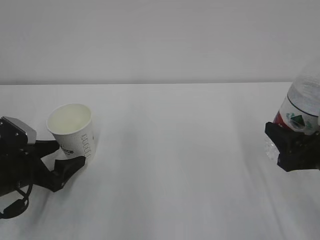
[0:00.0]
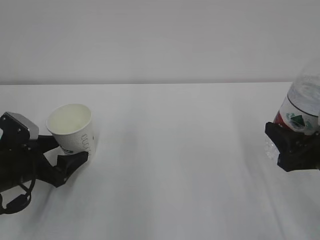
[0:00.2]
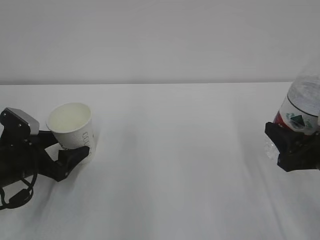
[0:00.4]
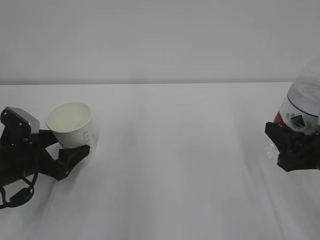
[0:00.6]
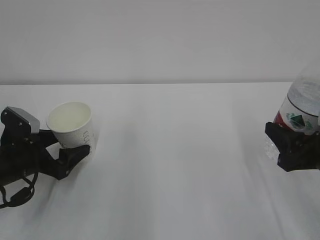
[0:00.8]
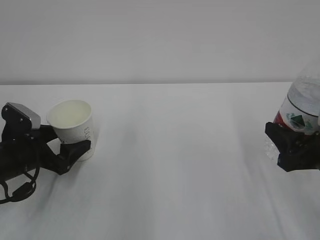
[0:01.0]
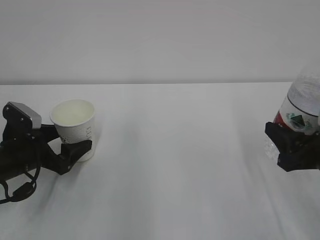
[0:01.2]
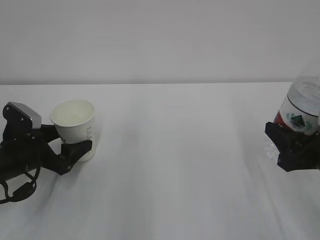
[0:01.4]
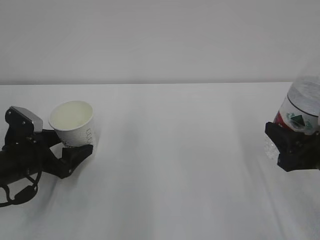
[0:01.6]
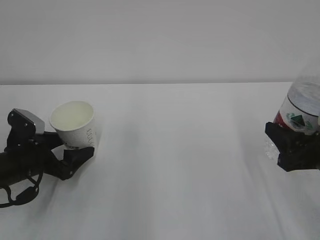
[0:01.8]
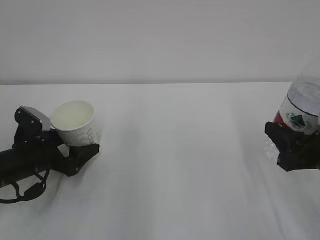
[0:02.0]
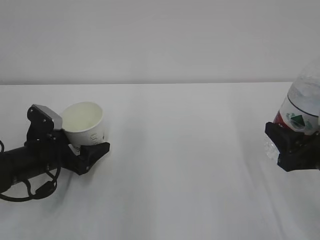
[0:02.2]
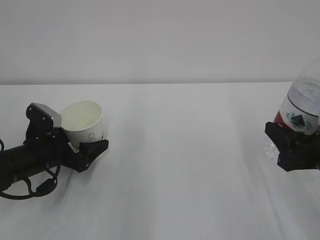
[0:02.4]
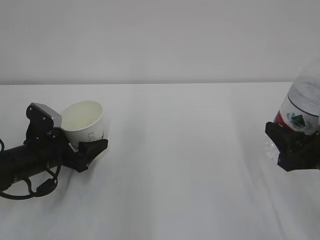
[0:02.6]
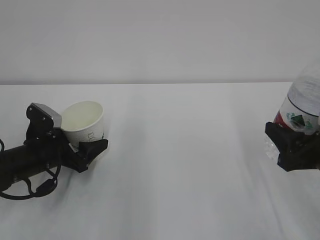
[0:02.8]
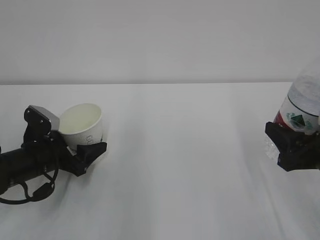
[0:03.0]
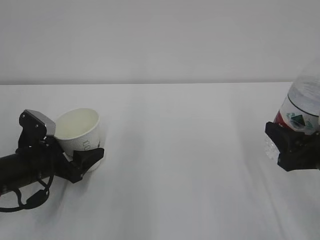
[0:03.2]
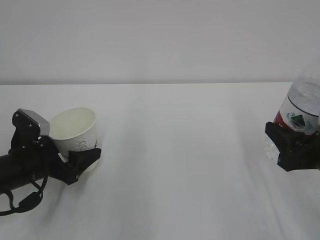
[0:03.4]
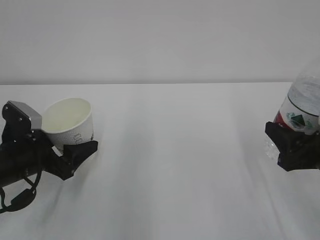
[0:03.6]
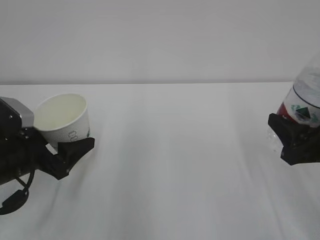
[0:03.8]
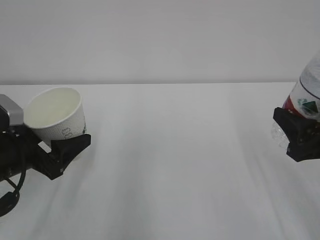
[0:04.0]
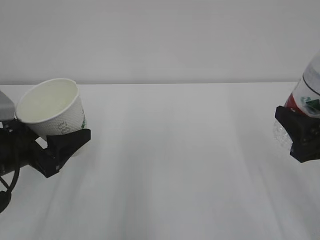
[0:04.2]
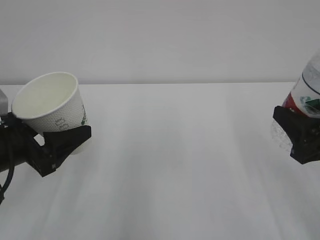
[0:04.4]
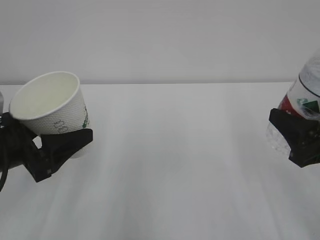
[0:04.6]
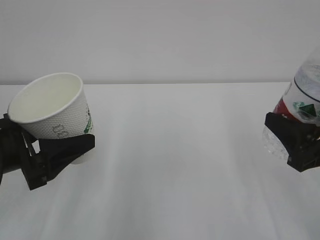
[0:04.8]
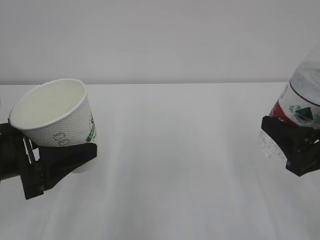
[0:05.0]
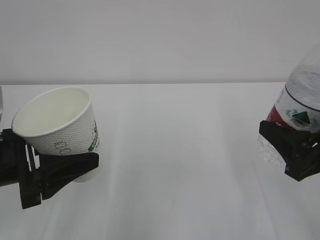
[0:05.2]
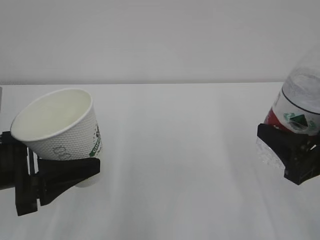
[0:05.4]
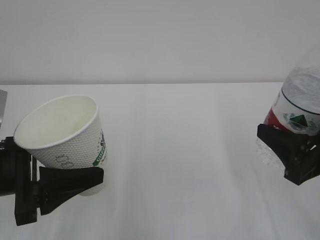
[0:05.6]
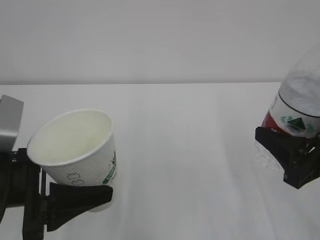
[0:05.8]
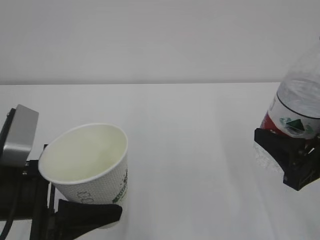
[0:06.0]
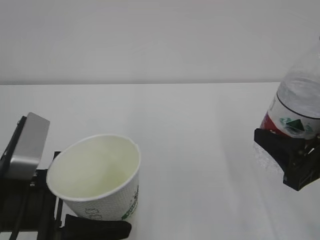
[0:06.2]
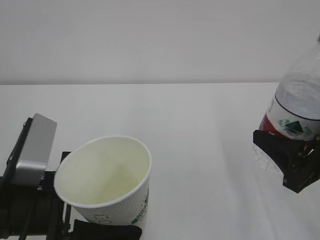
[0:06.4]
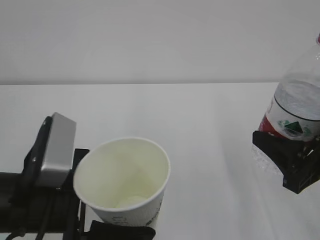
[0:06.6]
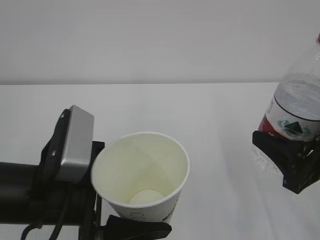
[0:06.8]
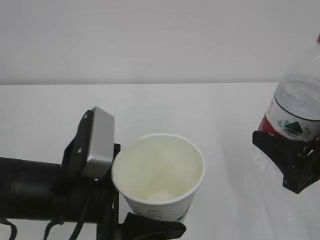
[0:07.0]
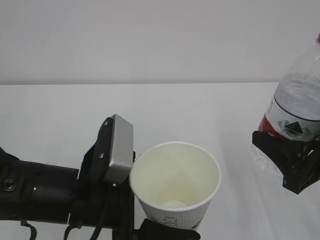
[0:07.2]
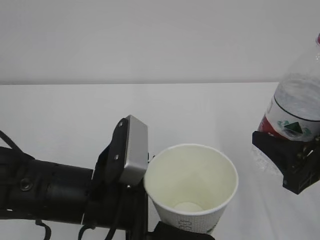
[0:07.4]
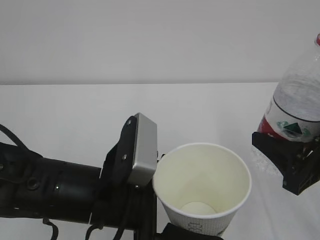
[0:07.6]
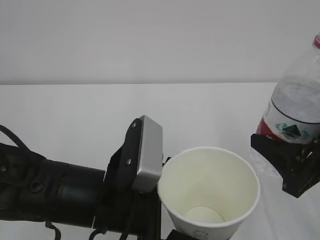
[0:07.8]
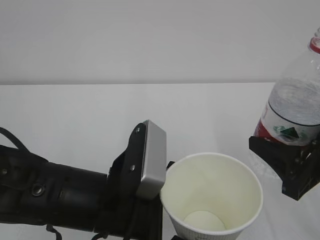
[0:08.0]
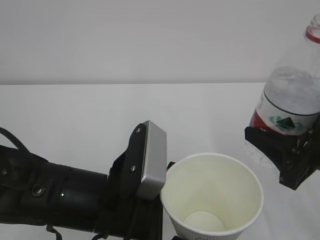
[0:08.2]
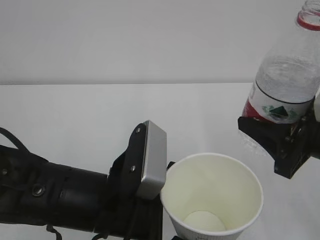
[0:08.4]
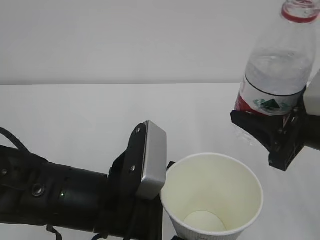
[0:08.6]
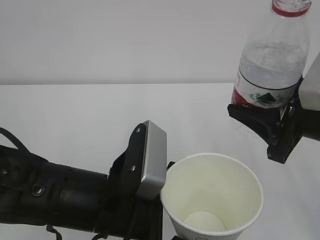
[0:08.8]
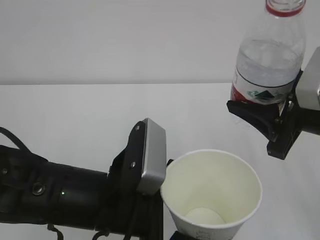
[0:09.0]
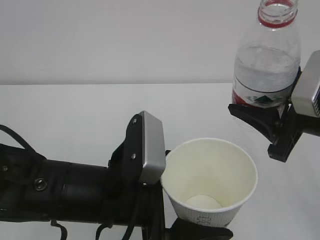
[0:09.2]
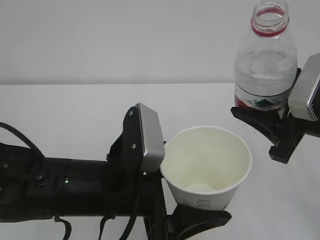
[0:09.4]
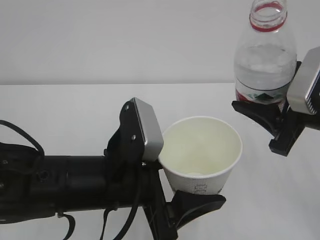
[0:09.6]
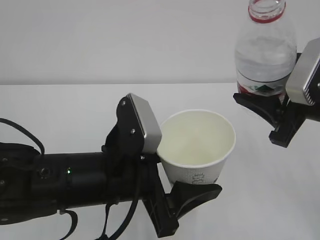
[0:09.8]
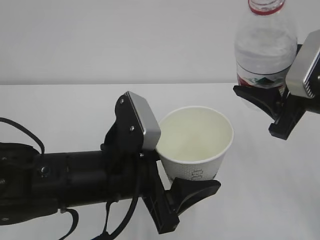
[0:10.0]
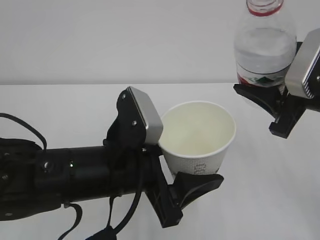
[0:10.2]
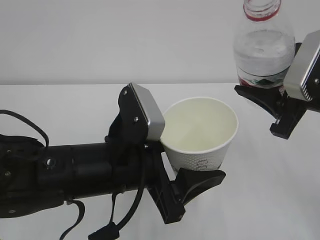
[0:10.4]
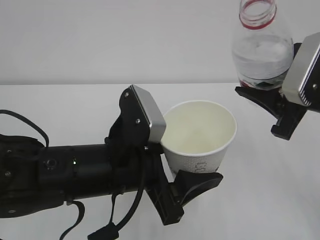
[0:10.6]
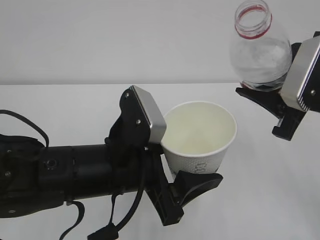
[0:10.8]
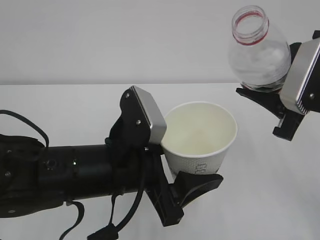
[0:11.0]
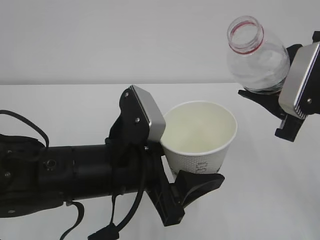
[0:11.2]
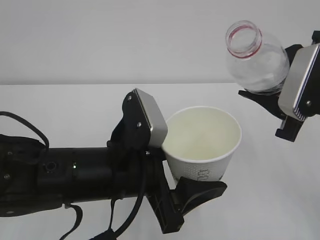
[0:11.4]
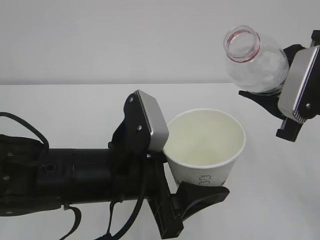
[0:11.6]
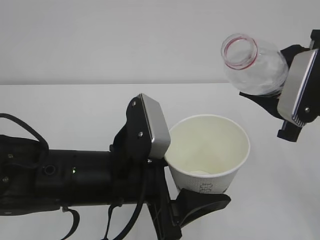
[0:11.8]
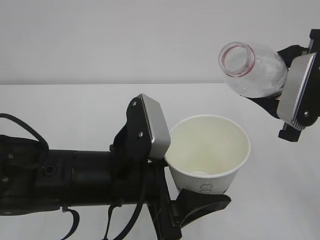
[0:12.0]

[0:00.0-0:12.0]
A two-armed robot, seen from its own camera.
0:00.0 to 0:01.6: The grippers make only small movements.
0:01.6 to 0:03.0: The left gripper closes.
0:03.0 to 0:04.4: The left gripper goes some 10 cm upward and backward.
0:04.4 to 0:06.0: The left gripper travels backward by approximately 5 cm.
0:06.0 to 0:07.6: The left gripper is displaced to the right by some 10 cm.
0:07.6 to 0:09.0: The right gripper travels upward by some 5 cm.

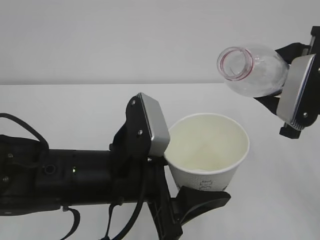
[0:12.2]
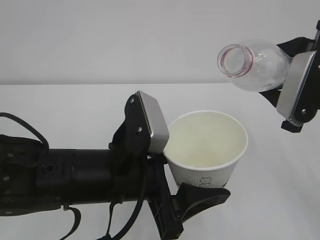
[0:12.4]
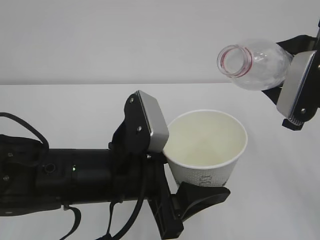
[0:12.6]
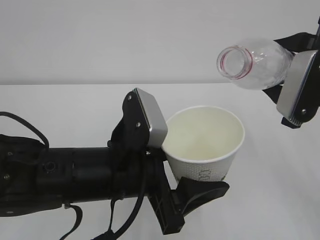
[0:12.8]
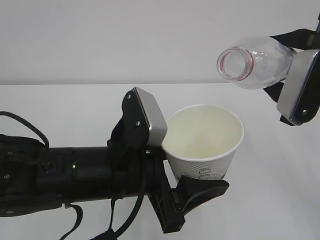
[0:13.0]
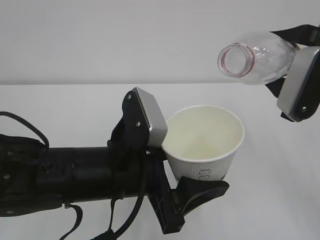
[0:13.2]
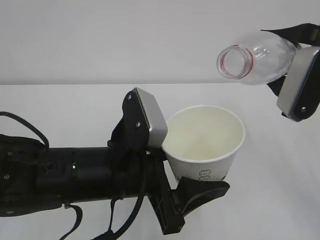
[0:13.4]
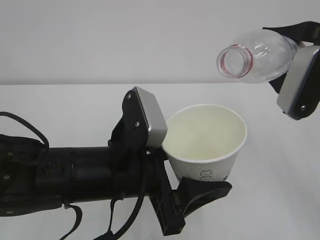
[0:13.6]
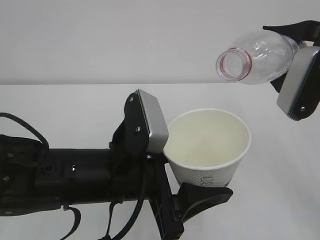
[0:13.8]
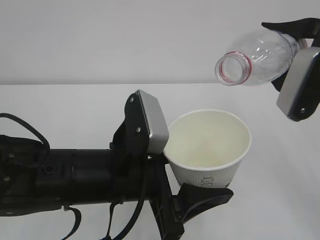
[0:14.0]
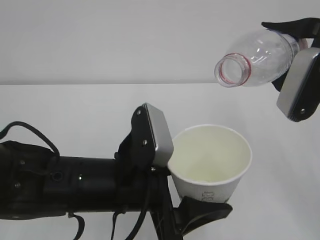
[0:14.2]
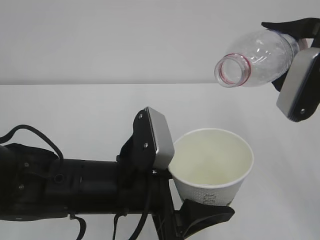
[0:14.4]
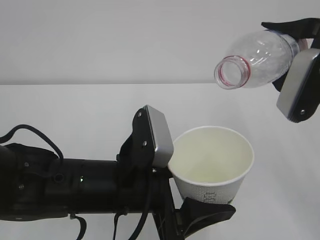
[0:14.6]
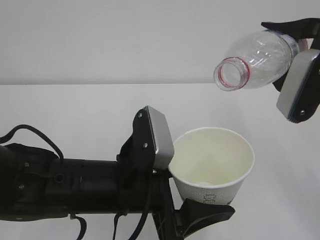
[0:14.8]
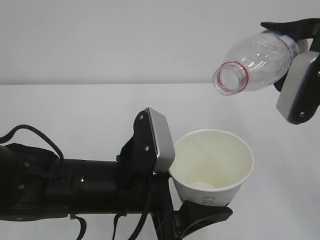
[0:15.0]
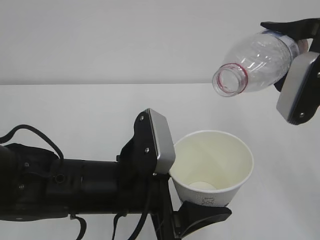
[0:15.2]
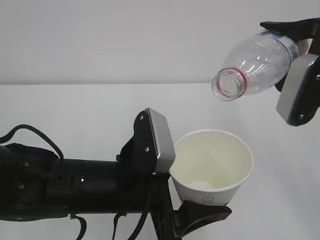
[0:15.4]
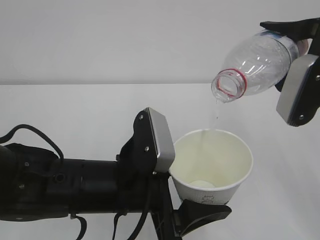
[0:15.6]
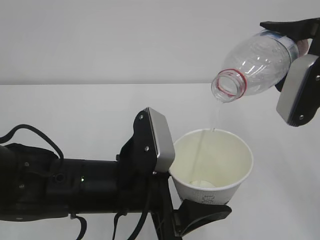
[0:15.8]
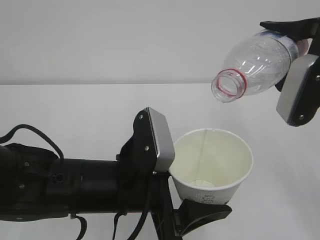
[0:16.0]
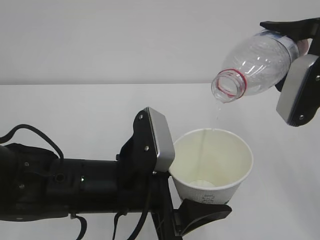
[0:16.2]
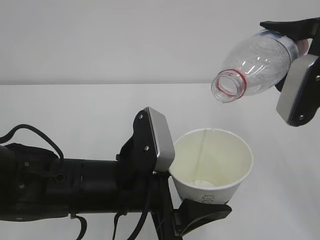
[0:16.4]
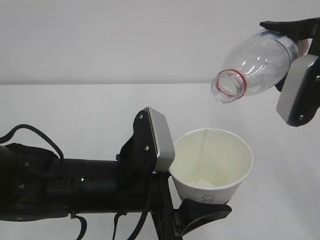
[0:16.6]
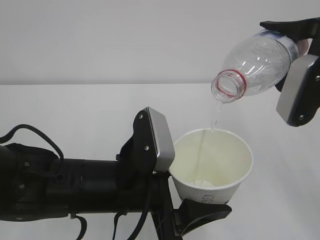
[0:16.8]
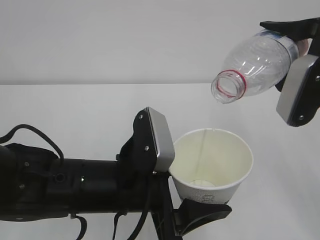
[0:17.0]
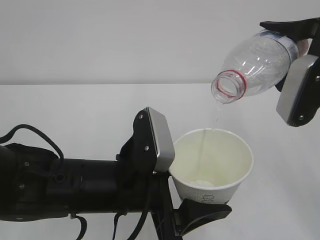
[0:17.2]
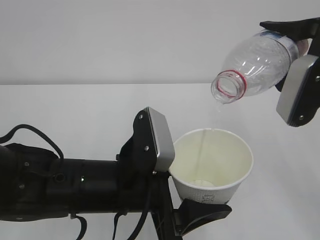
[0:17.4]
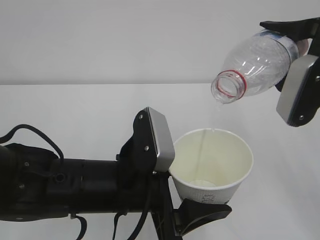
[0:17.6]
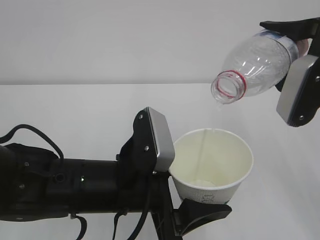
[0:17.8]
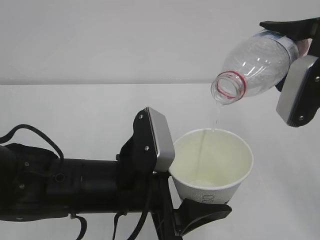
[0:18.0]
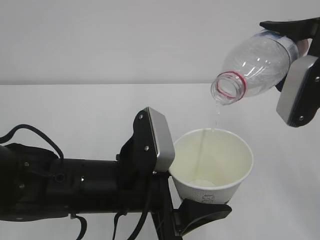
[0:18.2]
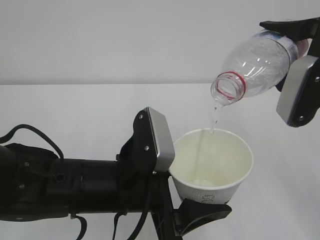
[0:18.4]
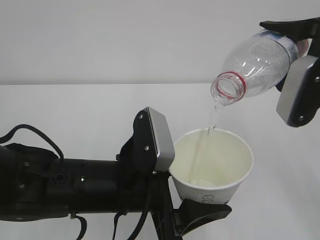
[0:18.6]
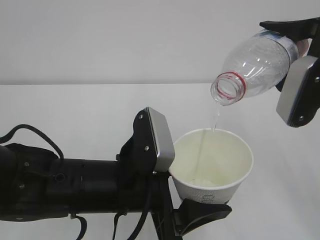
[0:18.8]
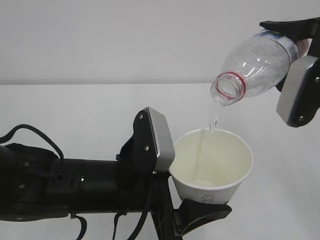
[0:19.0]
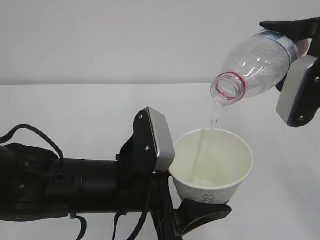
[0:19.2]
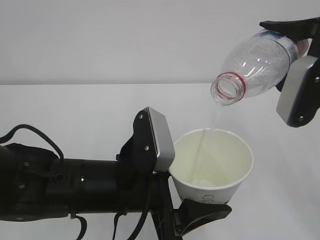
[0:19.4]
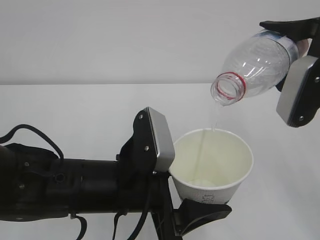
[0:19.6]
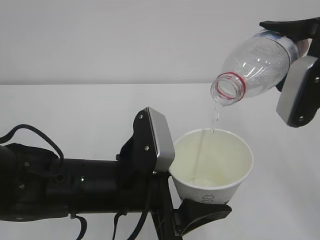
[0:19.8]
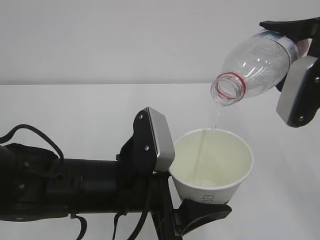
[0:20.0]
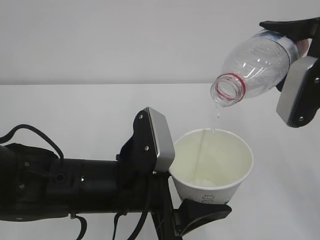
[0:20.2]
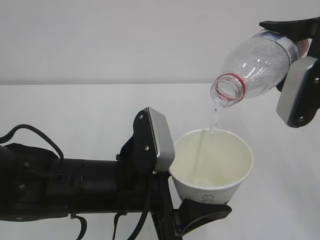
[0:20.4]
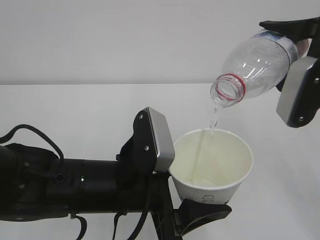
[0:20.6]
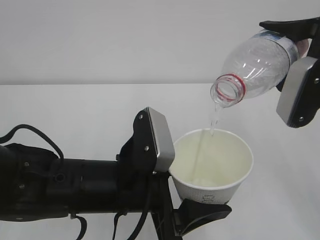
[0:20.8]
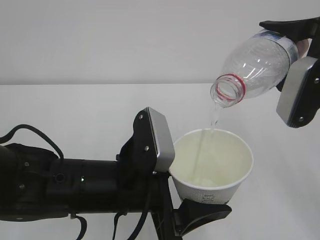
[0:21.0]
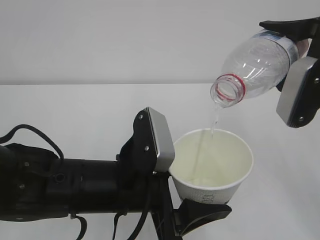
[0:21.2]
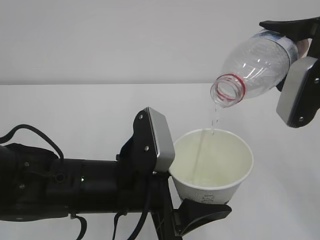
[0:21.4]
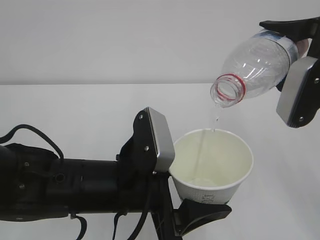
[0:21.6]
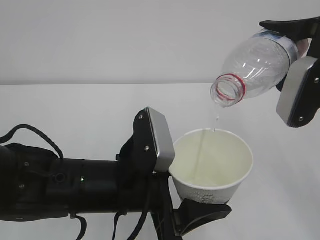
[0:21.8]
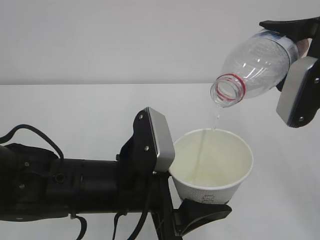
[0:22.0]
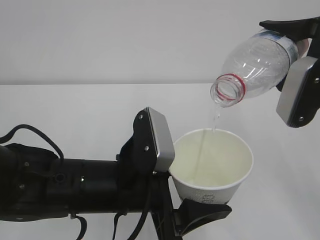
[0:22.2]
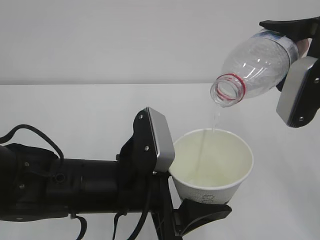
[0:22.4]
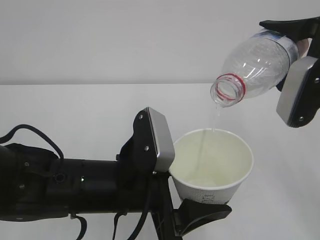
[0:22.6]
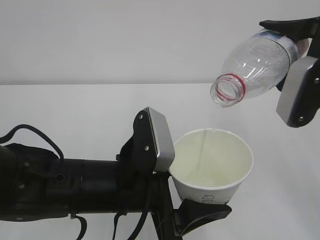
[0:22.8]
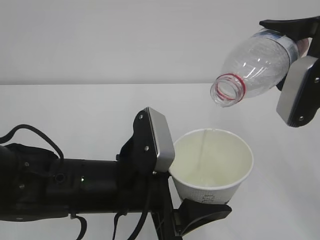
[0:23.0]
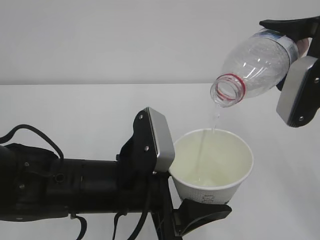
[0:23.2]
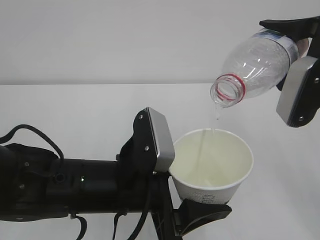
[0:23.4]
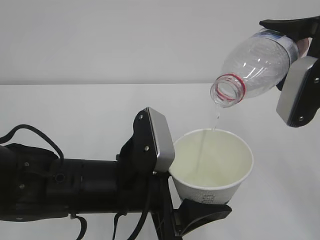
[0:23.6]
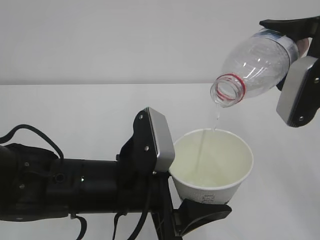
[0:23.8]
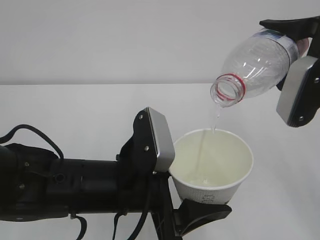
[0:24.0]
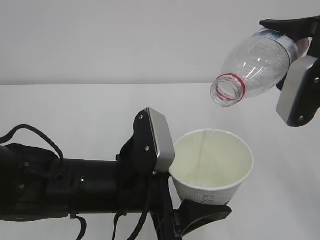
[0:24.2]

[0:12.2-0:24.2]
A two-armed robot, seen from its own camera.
0:12.2 to 0:13.8: The grippers make only small movements.
0:13.8 to 0:15.2: The grippers stay close to where they were, moving slightly.
0:15.2 to 0:22.6: Neither gripper changes place.
0:22.6 to 0:24.2: Neither gripper changes place.
